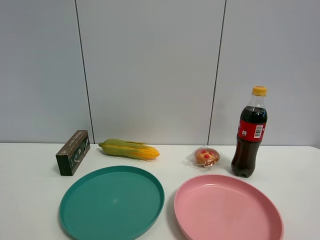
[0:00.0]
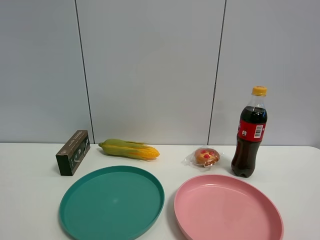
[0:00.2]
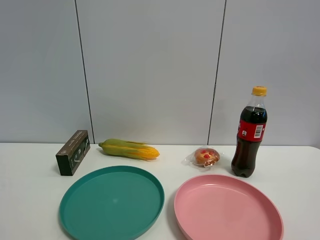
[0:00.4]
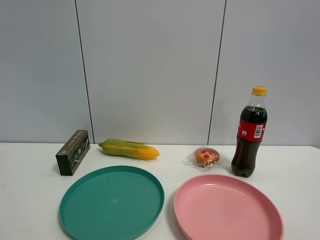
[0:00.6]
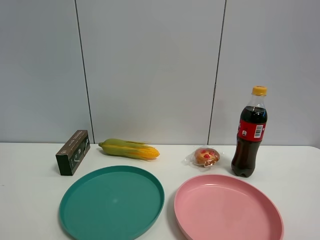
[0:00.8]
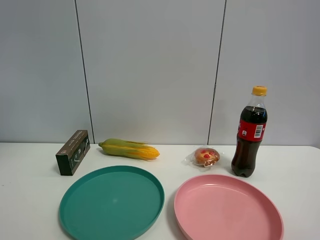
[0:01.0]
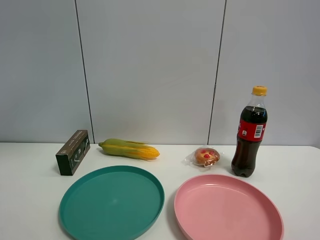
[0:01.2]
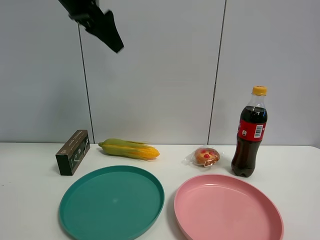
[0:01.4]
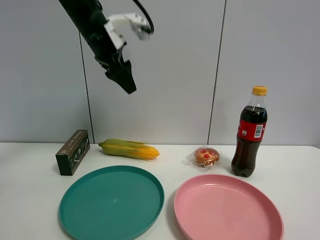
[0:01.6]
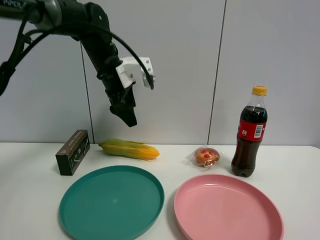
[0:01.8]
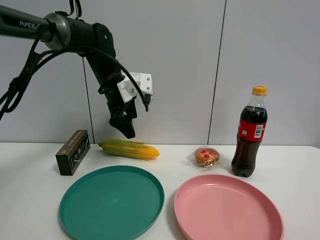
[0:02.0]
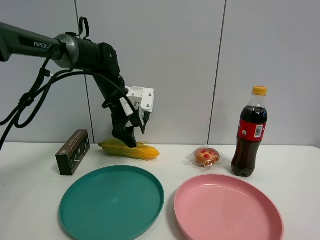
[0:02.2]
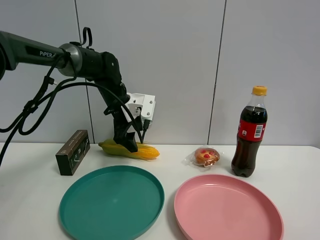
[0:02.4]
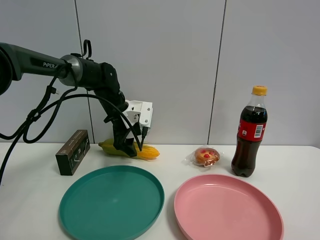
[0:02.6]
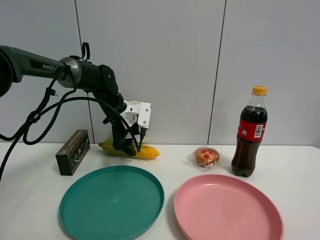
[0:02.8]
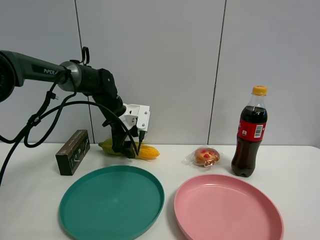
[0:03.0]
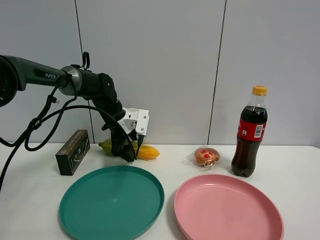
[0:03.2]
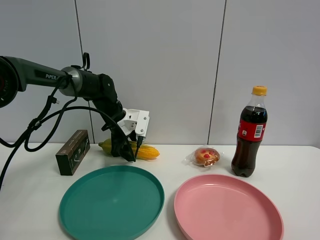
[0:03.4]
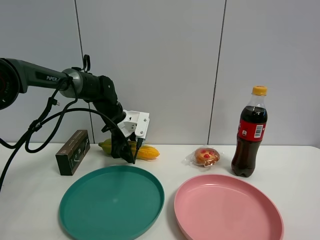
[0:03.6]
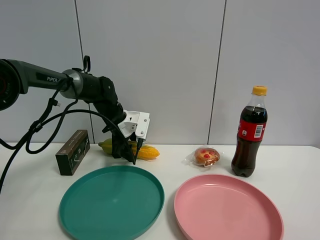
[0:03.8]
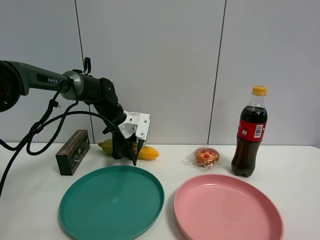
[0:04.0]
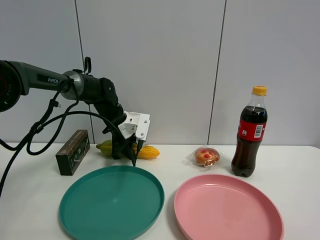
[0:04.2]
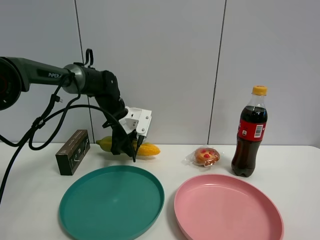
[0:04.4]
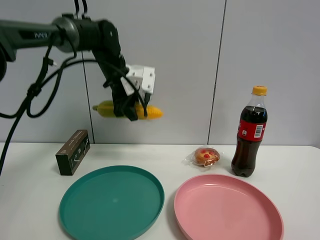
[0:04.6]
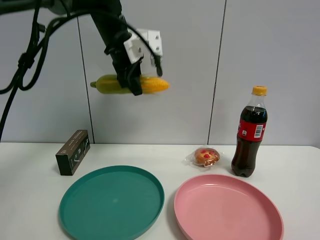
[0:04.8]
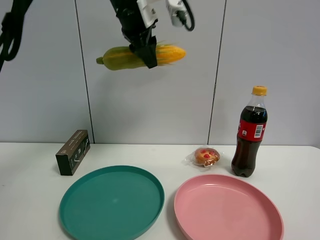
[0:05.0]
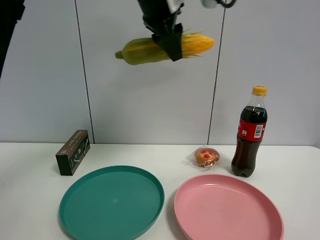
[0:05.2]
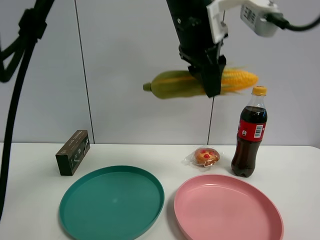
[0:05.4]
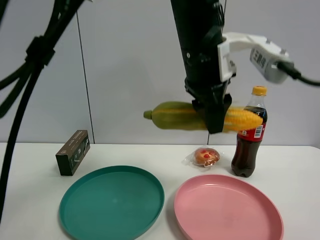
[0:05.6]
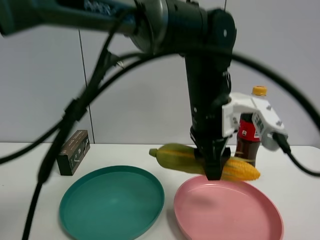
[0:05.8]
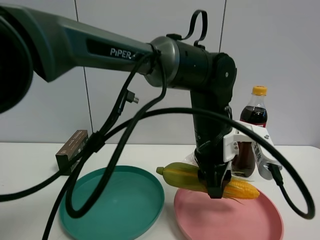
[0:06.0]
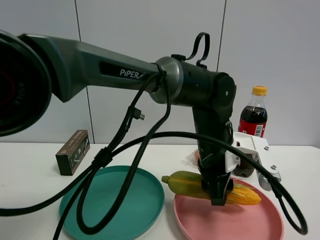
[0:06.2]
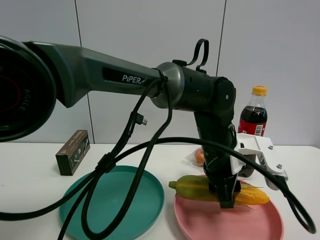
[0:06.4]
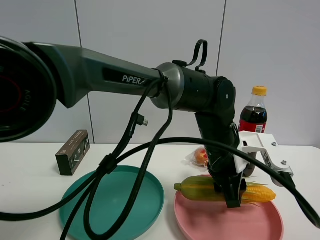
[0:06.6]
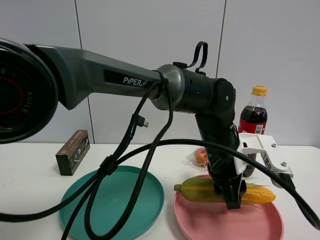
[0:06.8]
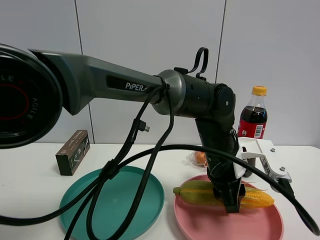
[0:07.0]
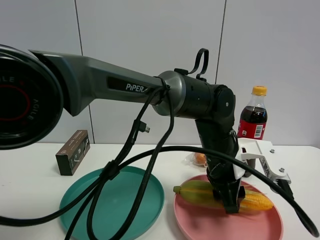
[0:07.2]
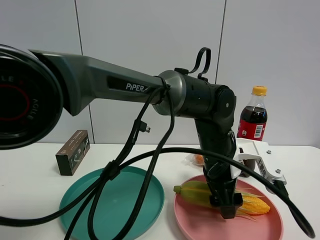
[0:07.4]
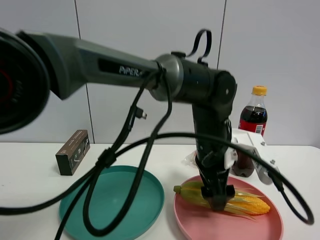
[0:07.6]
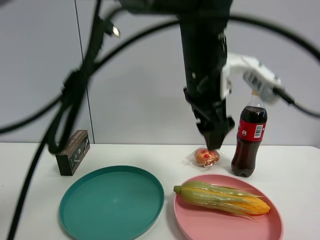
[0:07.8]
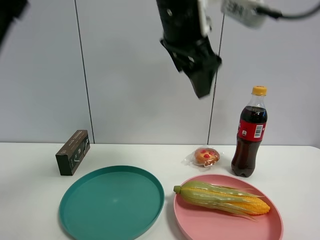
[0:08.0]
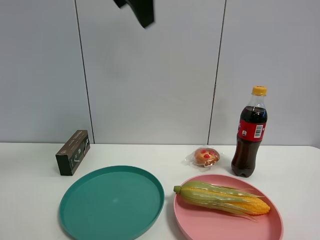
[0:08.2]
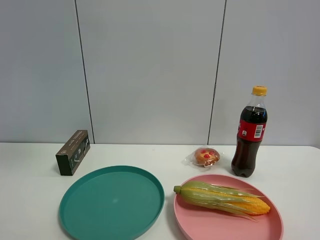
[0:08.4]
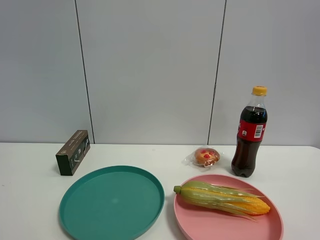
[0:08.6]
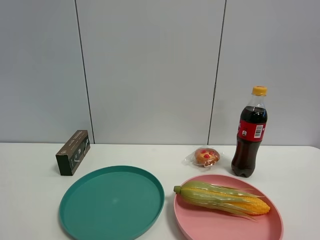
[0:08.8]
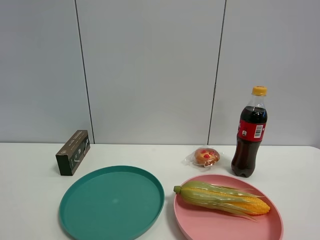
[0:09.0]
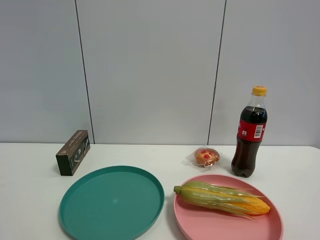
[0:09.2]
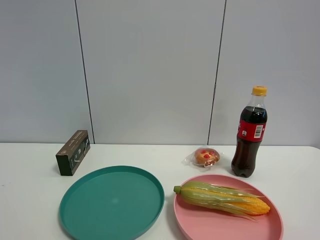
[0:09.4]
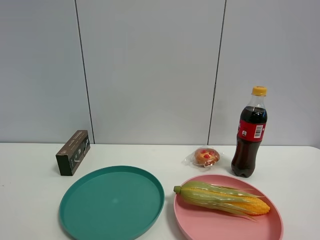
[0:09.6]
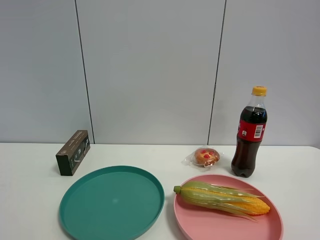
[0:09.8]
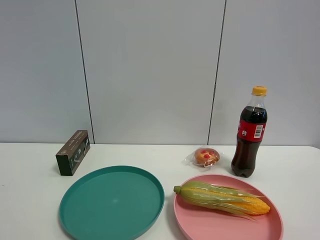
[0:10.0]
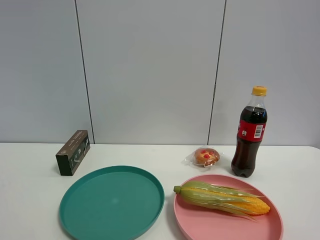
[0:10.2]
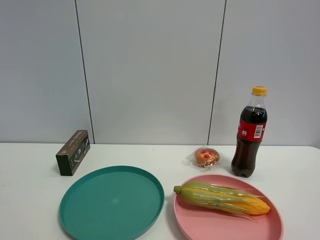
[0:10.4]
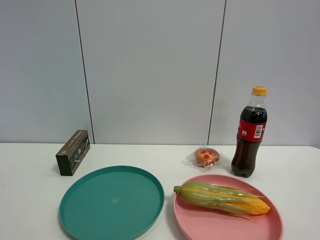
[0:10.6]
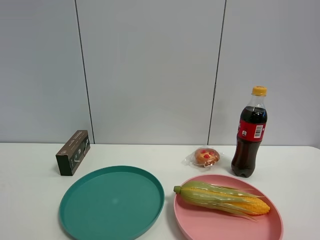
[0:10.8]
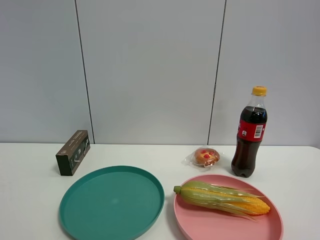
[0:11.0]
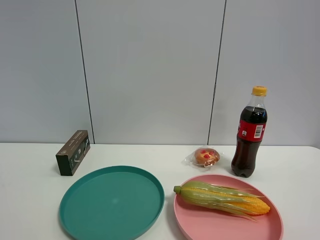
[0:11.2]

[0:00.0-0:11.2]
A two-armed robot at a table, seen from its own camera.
Task of the whole recording: the gripper move the object.
Step, 0:00.0 to 0:04.0: Grasp the corn with the left gripper.
Step, 0:04.2 to 0:07.6: Place the corn into the pink plate with the left gripper.
0:00.0 to 0:01.6: The left gripper travels forward by about 40 cm.
0:01.6 to 0:03.2: The left gripper goes about 20 cm downward.
0:03.2 to 0:04.8: The left gripper travels upward by approximately 20 cm, and closes its fingers.
0:04.8 to 0:06.4: The left gripper goes roughly 30 cm to the right, downward and backward.
0:06.4 to 0:08.0: The left gripper travels upward by some 25 cm, and opens its fingers.
0:08.0 to 0:09.6: The left gripper travels backward and to the left by about 50 cm.

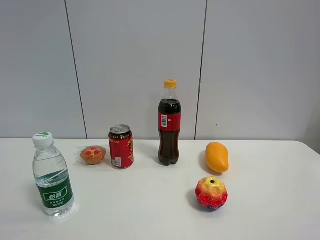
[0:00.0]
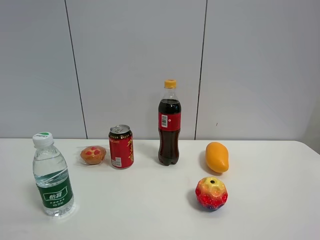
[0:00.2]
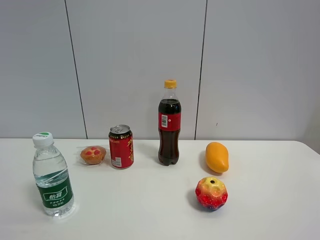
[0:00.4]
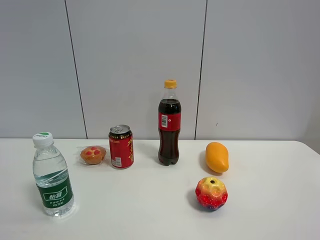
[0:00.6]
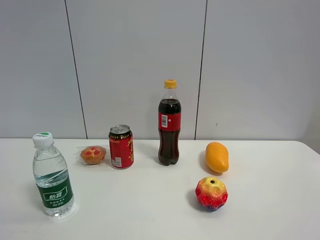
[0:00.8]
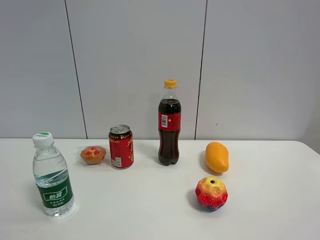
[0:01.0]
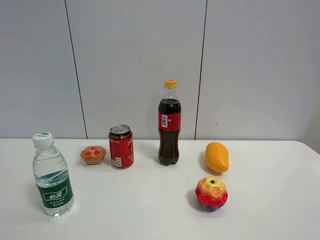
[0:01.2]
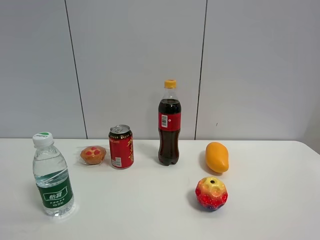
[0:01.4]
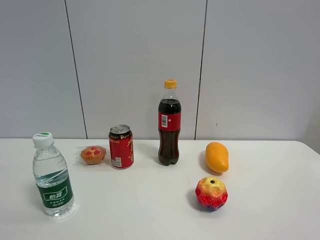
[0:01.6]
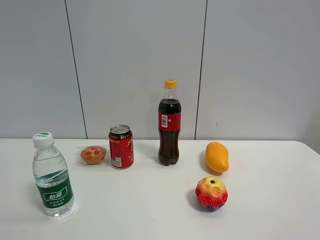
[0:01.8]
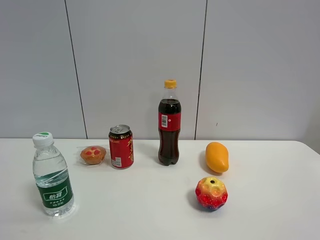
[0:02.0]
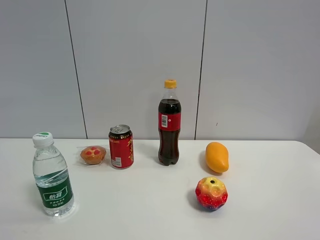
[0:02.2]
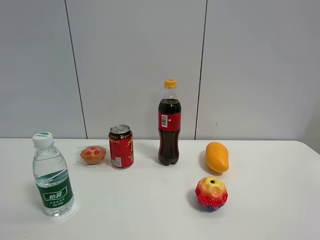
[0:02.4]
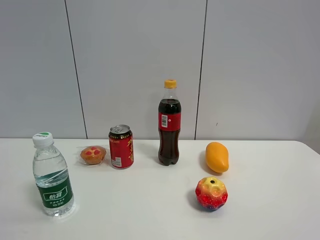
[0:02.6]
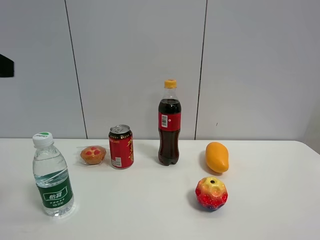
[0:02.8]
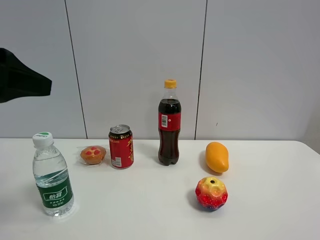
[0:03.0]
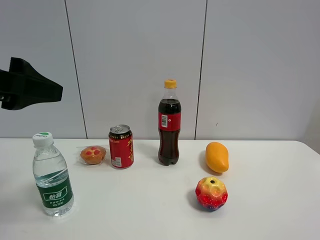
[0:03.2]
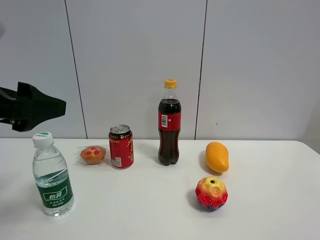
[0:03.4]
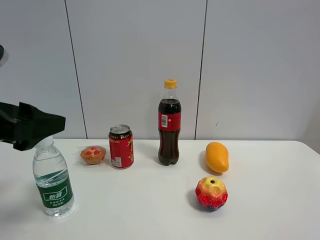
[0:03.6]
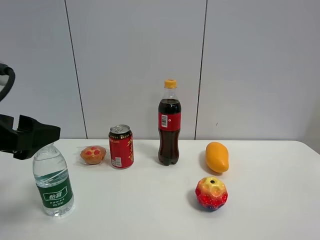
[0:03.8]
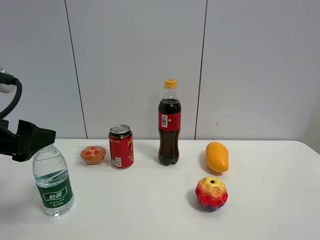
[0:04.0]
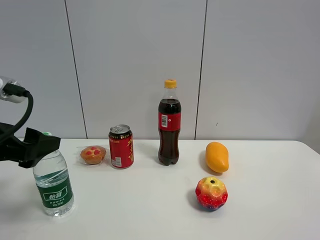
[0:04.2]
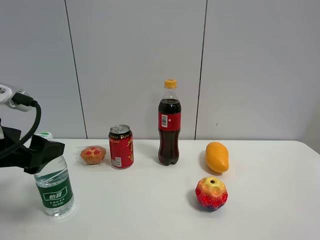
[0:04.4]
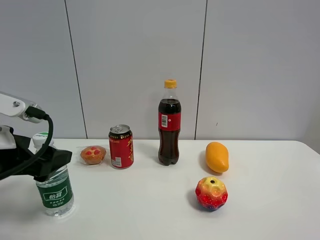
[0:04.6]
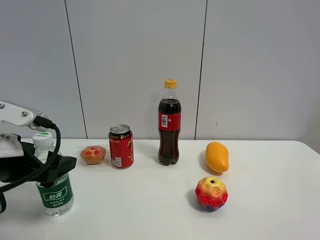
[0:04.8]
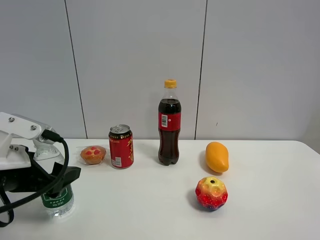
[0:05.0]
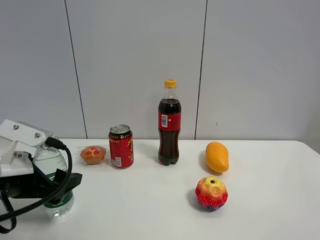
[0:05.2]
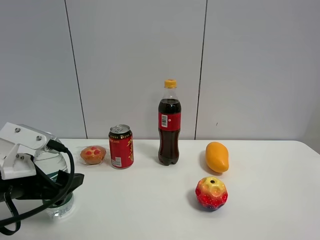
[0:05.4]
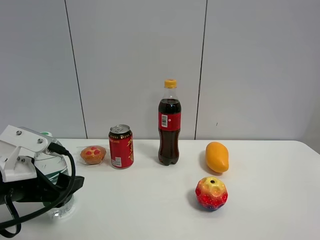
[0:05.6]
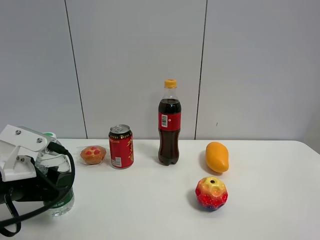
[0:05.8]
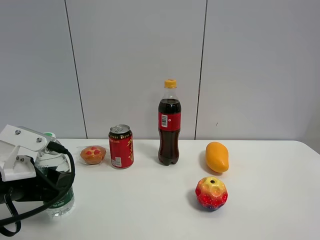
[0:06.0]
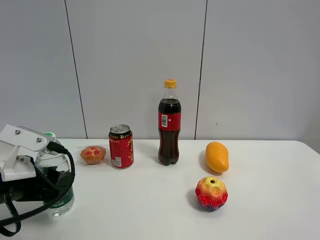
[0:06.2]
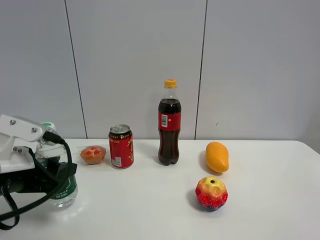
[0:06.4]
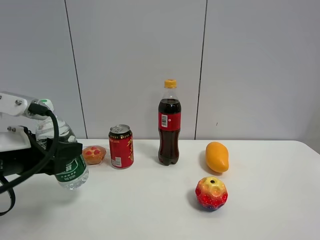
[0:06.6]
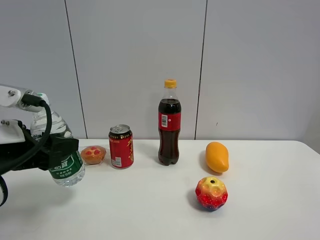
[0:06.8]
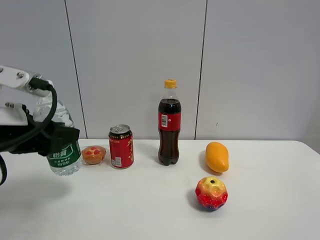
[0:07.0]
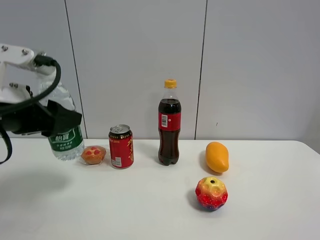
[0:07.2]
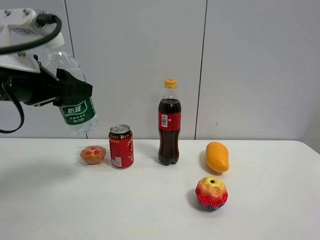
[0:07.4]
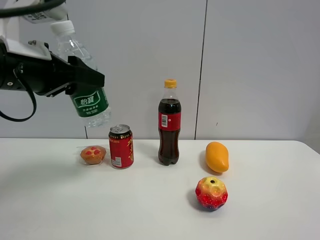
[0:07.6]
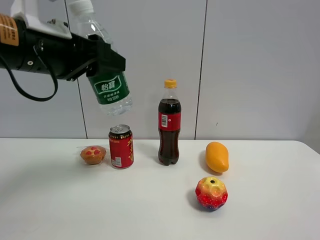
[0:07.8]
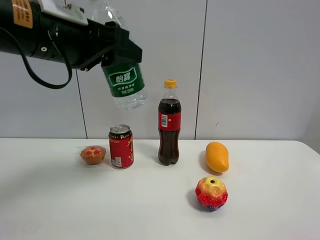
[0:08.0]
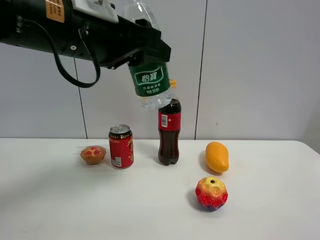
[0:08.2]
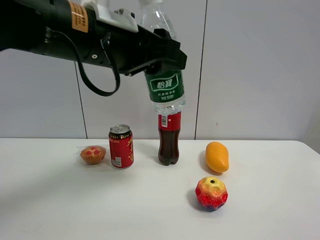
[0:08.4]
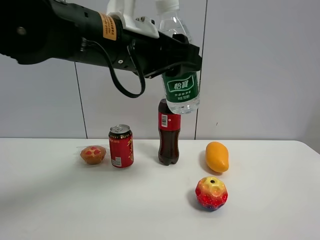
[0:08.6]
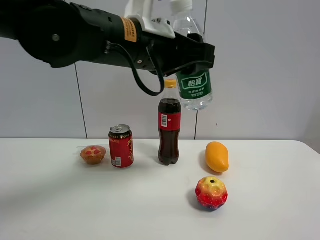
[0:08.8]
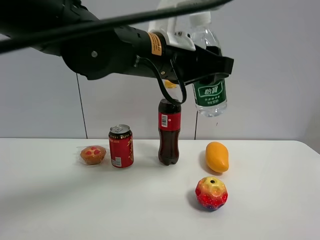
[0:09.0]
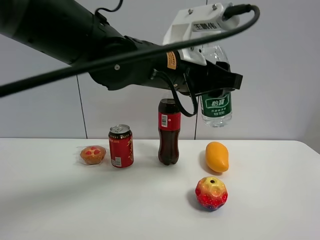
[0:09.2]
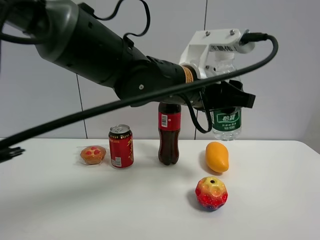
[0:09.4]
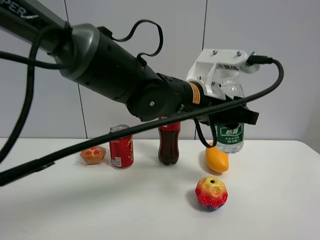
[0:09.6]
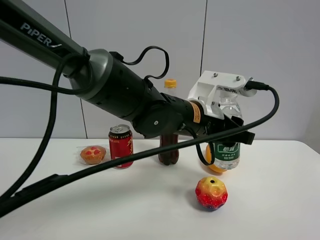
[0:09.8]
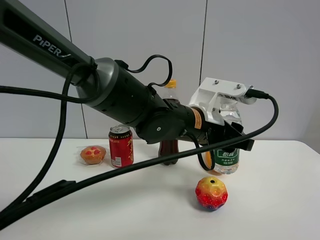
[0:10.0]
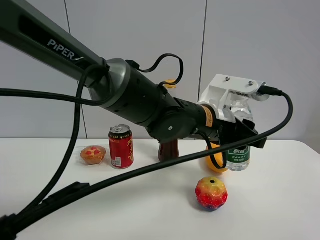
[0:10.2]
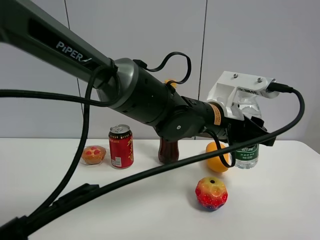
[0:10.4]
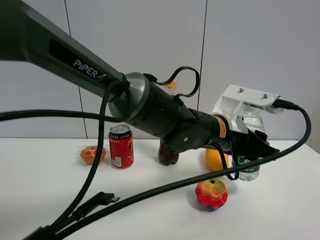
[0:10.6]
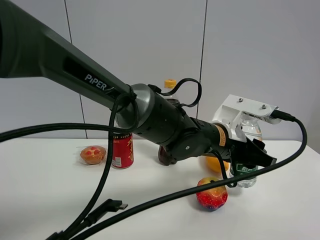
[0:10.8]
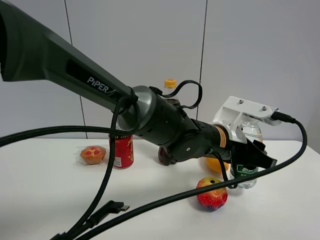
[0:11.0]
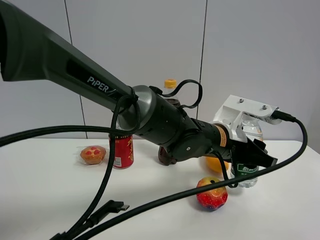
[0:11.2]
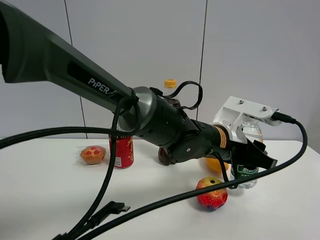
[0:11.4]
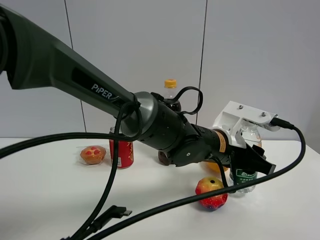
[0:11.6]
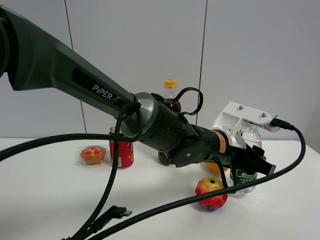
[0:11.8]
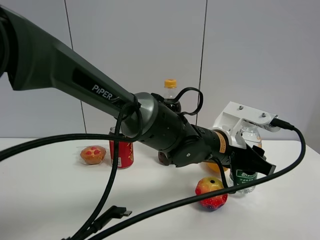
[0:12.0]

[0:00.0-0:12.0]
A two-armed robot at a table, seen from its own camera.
Task of the whole recording: the gripper move the object.
Step, 0:00.0 to 0:06.0: Grasp the YiBao mineral water with the left gripper.
0:01.6 to 0:03.0: The left gripper goes some 20 cm forward and to the right.
0:03.0 to 0:04.4: The left gripper goes about 10 cm downward.
0:04.4 to 0:06.0: The left gripper moves downward, some 10 cm, and closes its fingers.
0:06.0 to 0:07.6: The left gripper travels upward by some 15 cm.
0:07.6 to 0:09.0: The left gripper shifts approximately 20 cm to the right.
0:09.0 to 0:10.4: The left gripper shifts about 15 cm downward and to the right.
0:10.4 to 0:12.0: The left gripper moves some 5 cm.
